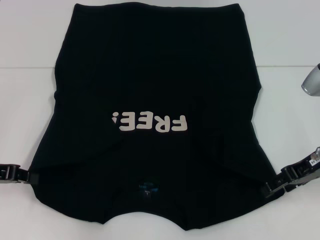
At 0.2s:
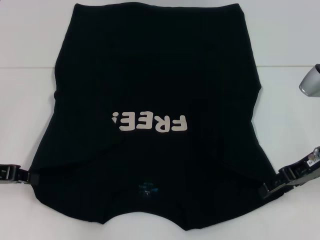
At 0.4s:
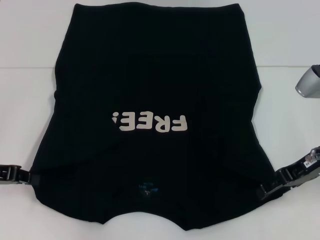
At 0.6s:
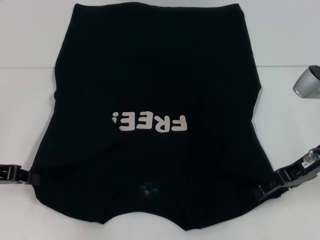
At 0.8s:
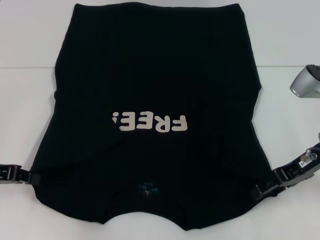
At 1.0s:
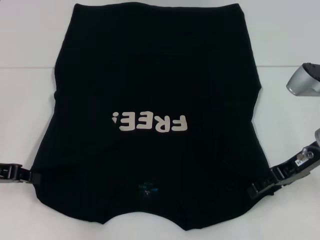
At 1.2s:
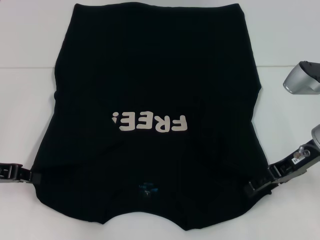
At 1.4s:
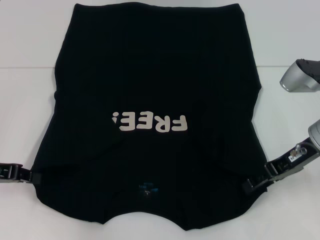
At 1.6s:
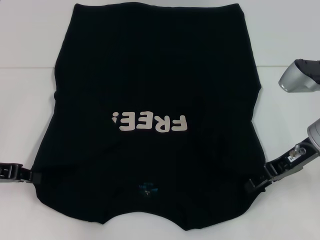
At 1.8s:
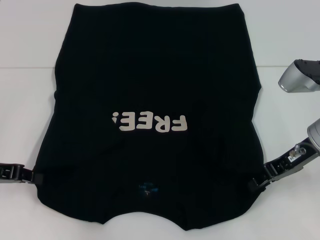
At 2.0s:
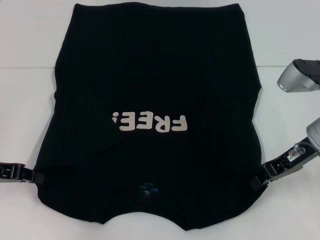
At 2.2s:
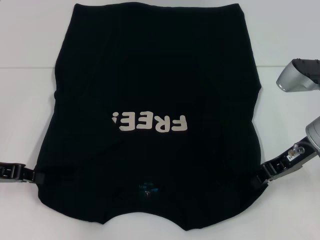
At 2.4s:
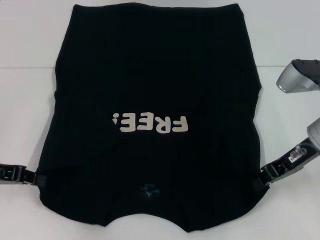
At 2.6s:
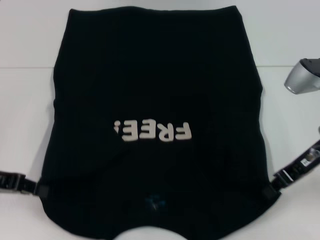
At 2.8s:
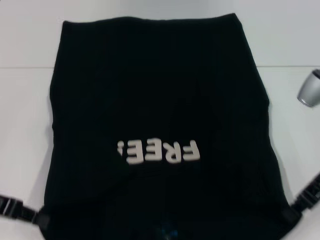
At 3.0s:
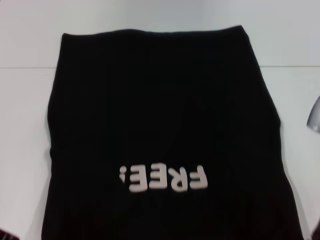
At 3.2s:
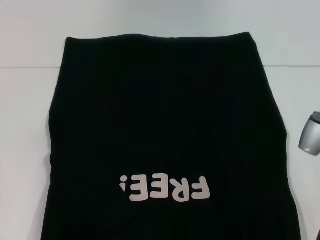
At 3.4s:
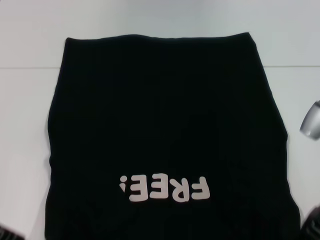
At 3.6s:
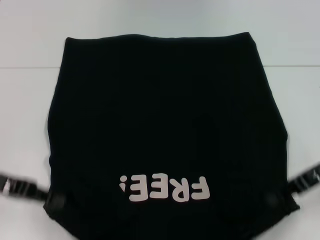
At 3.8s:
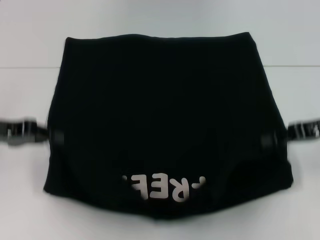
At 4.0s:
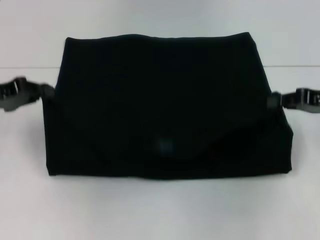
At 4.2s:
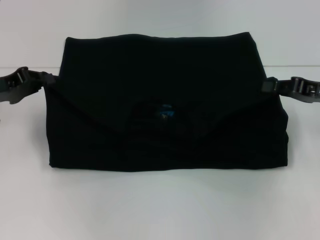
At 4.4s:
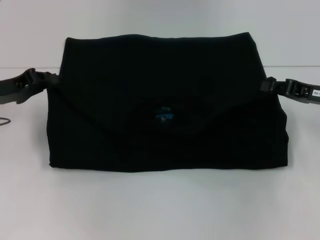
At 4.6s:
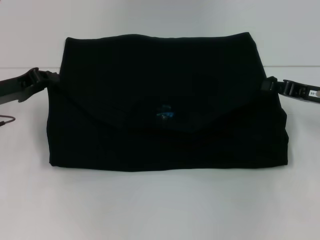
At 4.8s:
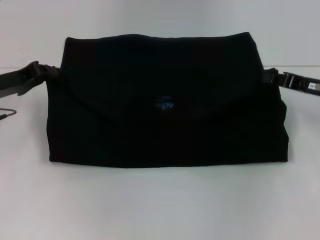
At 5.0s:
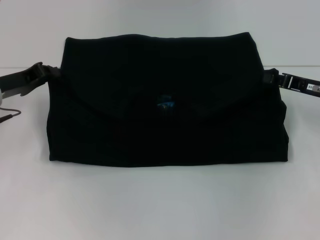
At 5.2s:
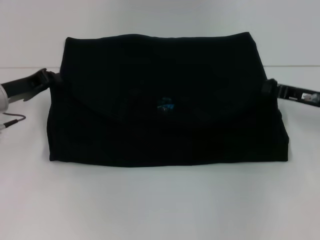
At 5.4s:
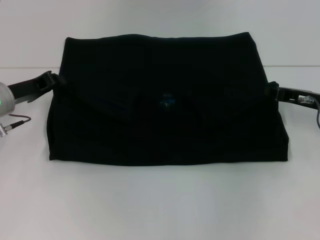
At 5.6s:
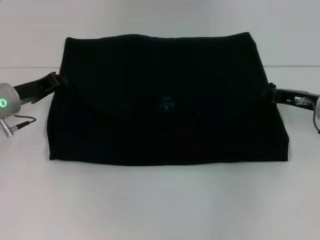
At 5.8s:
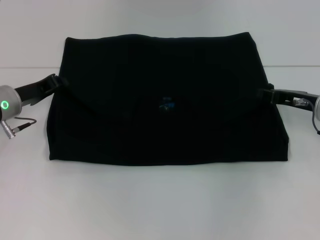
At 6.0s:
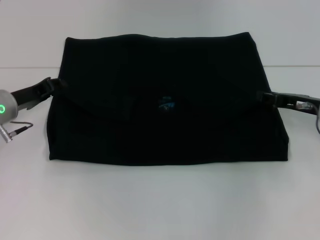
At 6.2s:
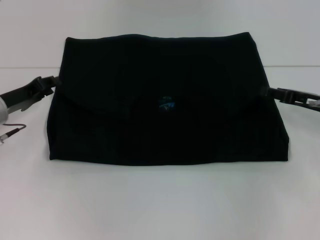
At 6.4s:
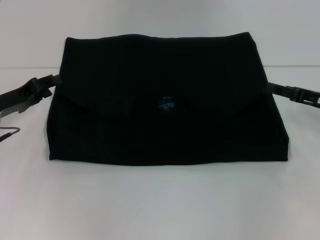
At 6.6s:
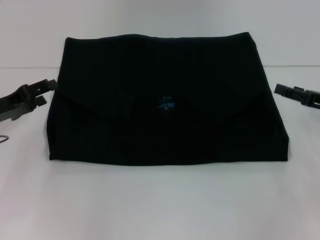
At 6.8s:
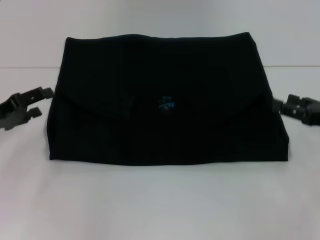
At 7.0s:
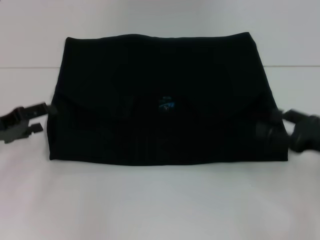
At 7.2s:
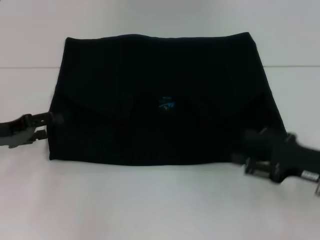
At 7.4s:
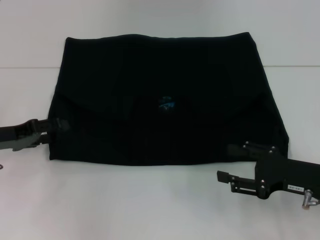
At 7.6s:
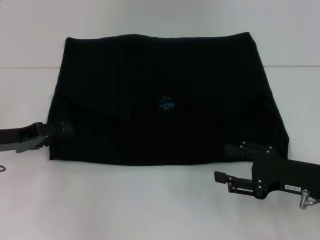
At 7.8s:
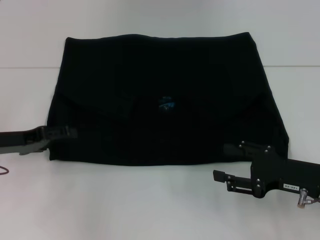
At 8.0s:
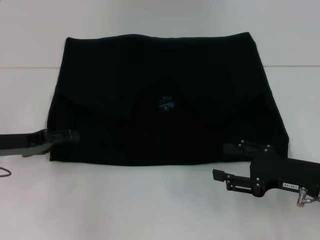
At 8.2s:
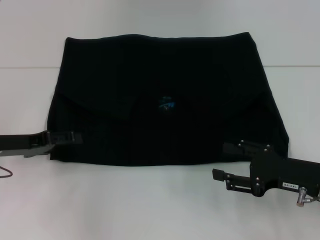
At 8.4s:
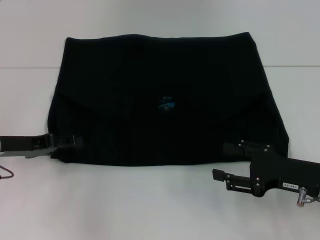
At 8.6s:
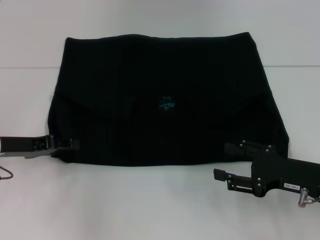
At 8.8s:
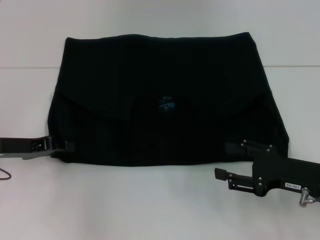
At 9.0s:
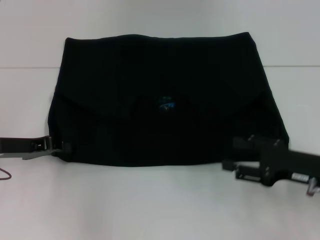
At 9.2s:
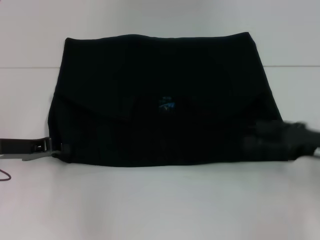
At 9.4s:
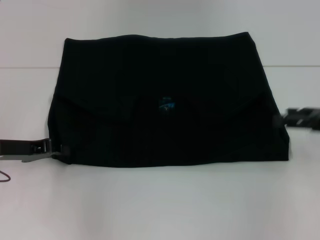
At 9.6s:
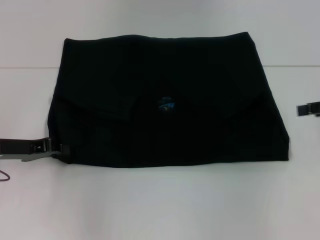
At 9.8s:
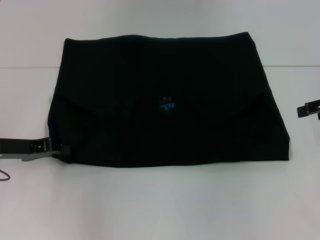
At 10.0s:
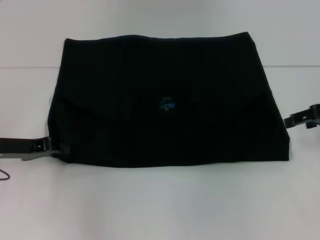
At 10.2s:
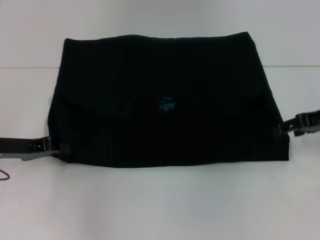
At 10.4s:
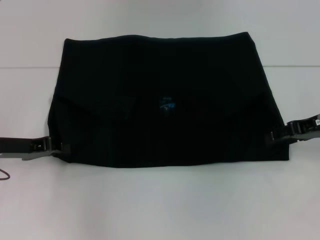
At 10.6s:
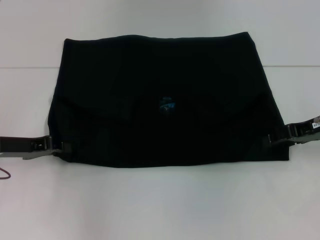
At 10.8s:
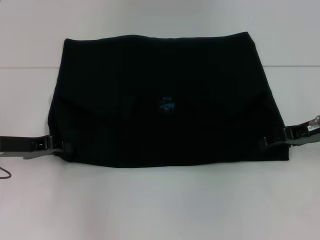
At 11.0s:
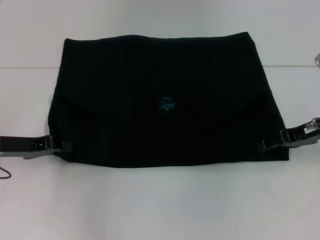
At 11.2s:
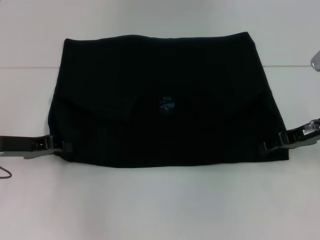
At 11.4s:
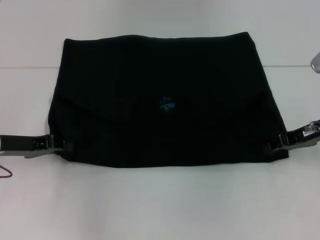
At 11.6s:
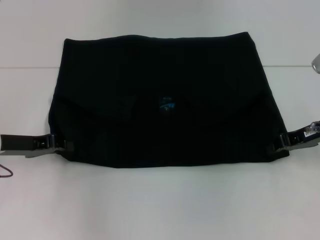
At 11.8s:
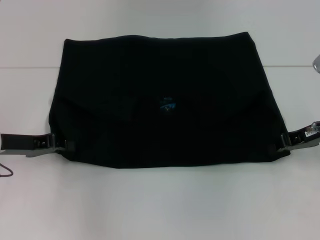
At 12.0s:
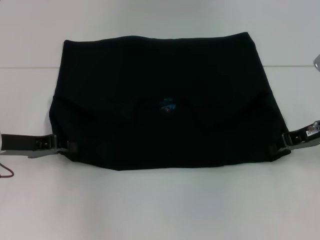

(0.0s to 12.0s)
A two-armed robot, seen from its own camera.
Step, 0.0s - 2.2s: Grab the bottom right corner with your right hand.
Step, 2.4s - 6.0s: Fold the clothes with your left hand.
Step, 2.4s - 6.0s: Fold the clothes with your right hand.
0.0s - 1.6s: The grippers make only small movements.
1.6s - 3.0s: The right gripper ends up about 5 cm from where it was, and closes its fingers.
3.0s - 4.4s: The right gripper changes place by approximately 5 cm; the left gripper shifts about 10 cm forward.
4.4s - 6.0s: The left gripper shifts by about 5 cm.
6.0s - 7.6s: The right gripper is displaced backward by approximately 10 cm, and opens; the left gripper goes approximately 5 cm backward, and opens up.
7.6s - 9.0s: The left gripper closes.
9.0s - 10.4s: The right gripper goes about 15 cm forward and upward.
10.4s - 12.0s: The right gripper closes up.

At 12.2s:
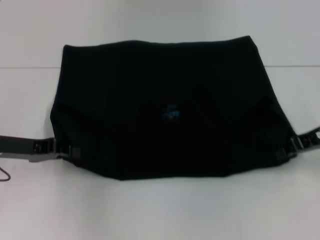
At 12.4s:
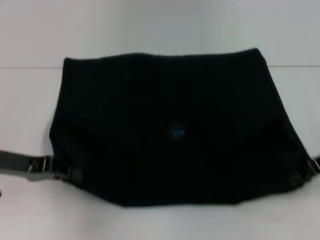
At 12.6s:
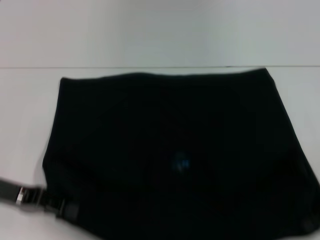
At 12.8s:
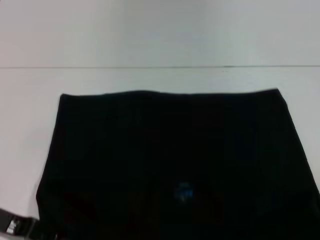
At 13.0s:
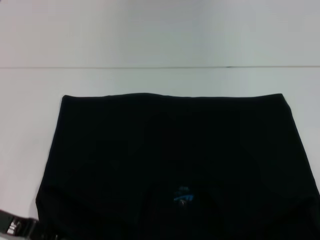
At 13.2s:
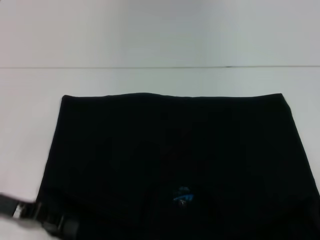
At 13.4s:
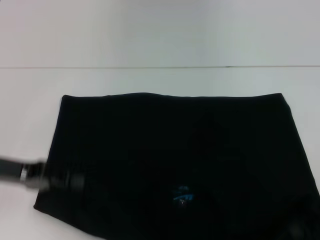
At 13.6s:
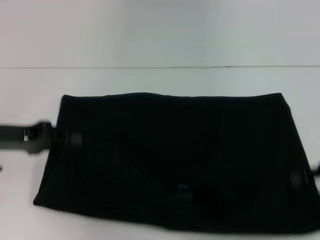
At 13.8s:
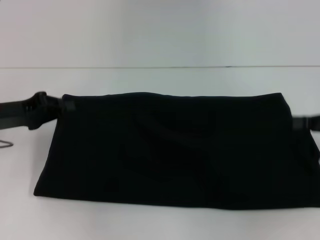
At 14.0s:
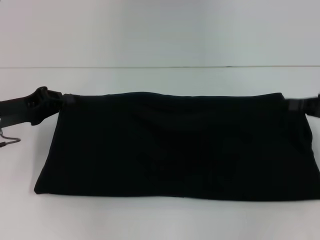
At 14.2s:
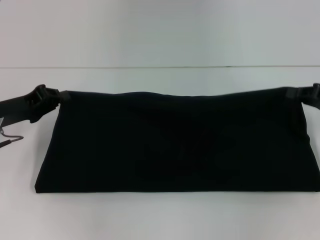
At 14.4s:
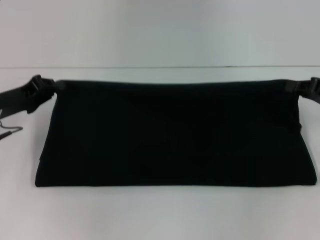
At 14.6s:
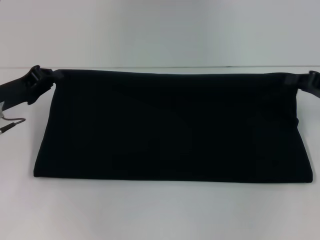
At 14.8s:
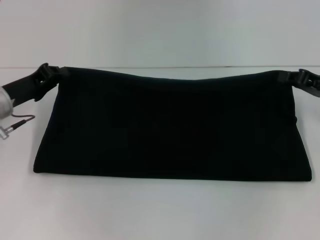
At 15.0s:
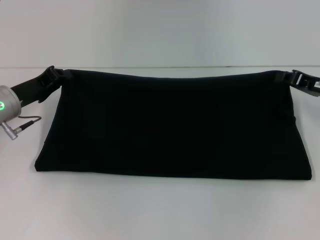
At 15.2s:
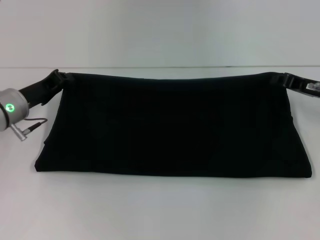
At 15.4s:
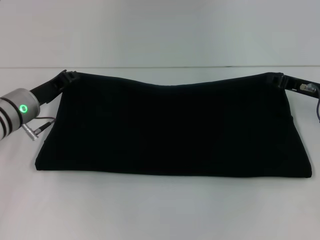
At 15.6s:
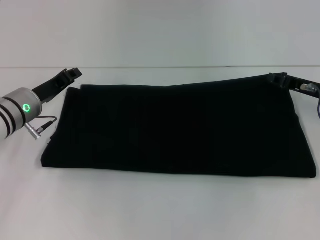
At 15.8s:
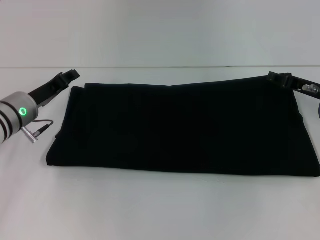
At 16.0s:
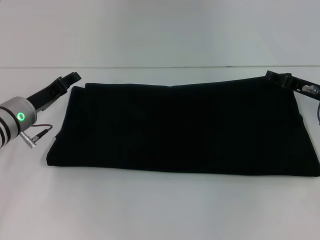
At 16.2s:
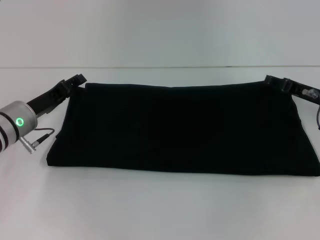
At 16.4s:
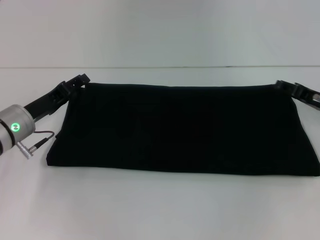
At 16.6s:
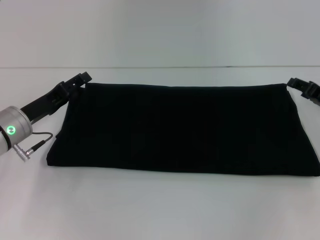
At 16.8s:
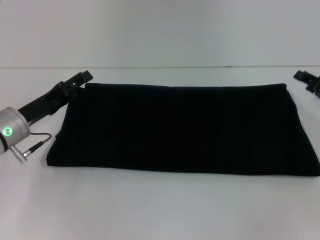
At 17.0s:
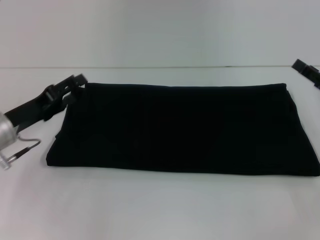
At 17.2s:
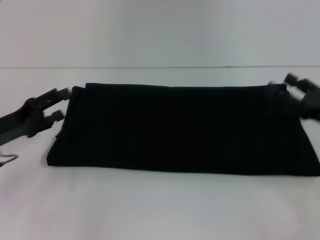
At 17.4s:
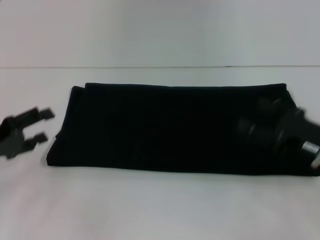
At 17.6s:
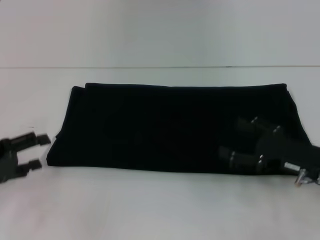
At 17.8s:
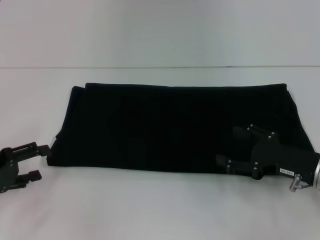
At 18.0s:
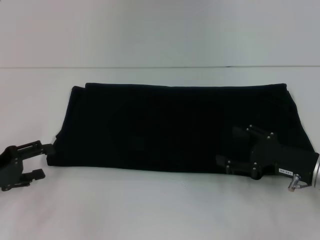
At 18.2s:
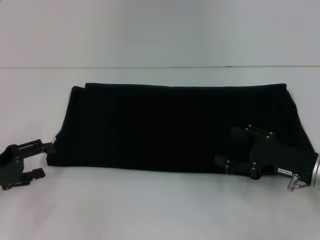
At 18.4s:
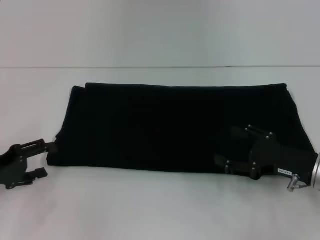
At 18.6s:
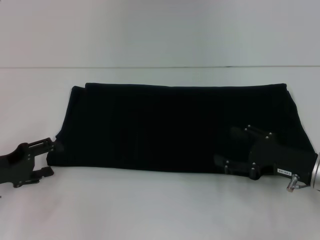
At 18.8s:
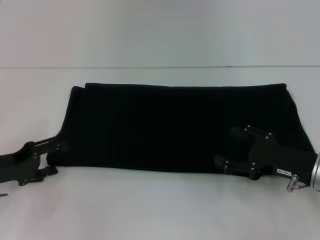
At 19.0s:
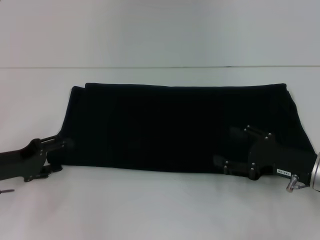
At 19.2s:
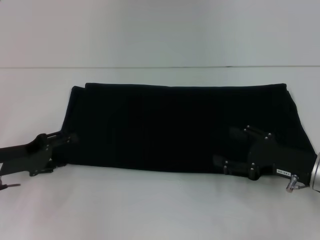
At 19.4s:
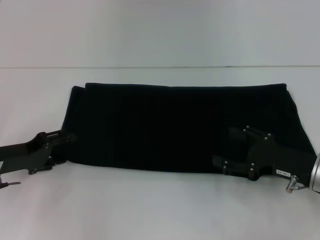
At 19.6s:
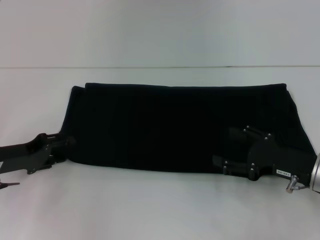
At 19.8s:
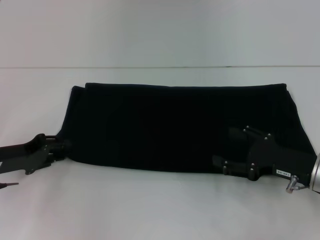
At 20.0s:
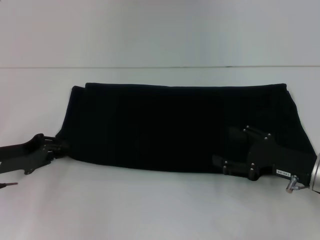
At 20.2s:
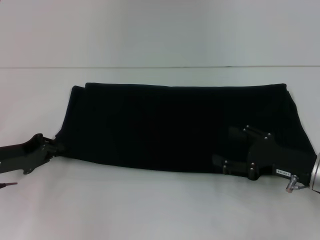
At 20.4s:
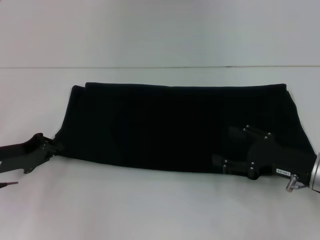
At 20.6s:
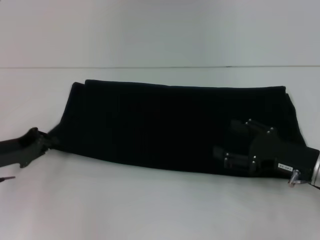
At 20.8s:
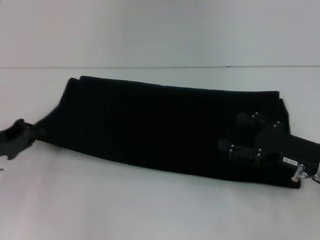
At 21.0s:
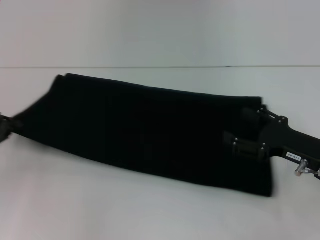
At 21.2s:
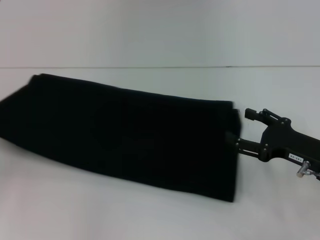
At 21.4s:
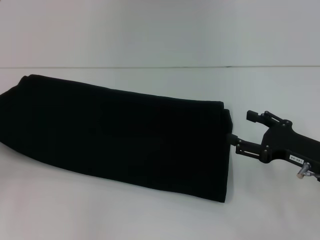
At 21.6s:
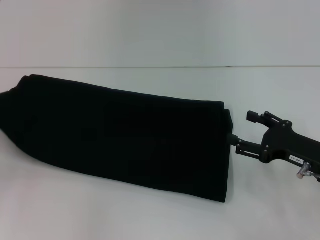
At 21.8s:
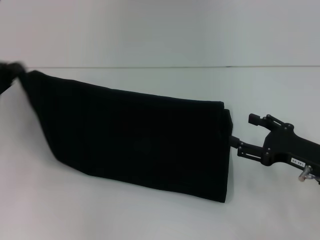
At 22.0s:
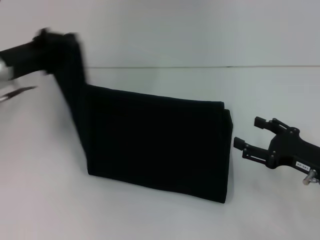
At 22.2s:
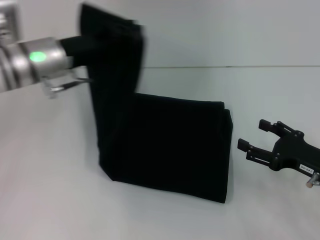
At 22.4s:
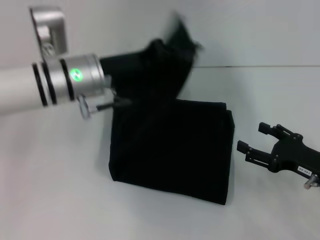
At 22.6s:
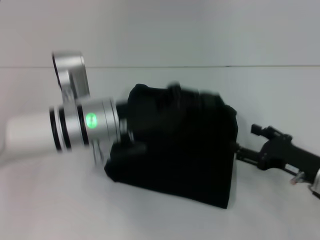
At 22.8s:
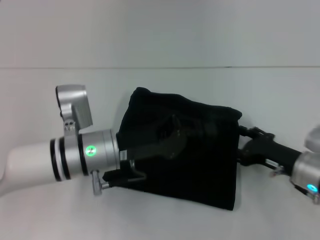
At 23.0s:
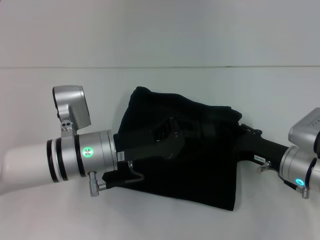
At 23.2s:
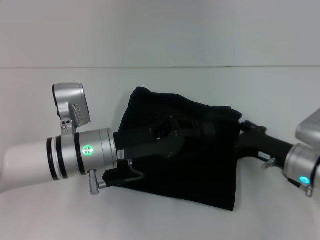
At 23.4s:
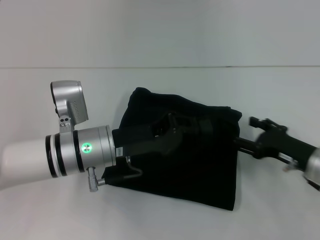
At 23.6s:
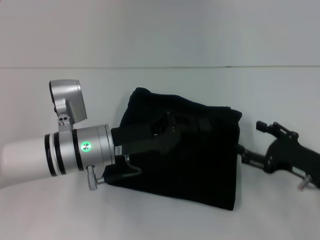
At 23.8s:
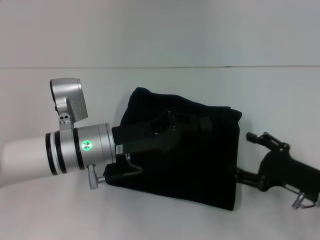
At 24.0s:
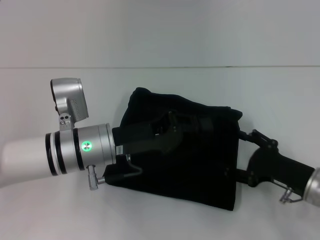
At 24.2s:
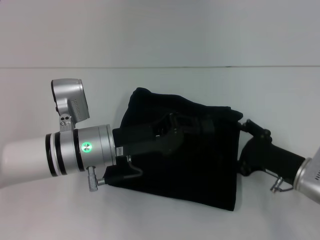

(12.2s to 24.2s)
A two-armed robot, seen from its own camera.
Step, 13.0s - 16.4s: Fold the clothes with your right hand.
12.2s - 13.8s: The right gripper is displaced to the right by approximately 5 cm. The left gripper moves approximately 5 cm backward and comes back.
13.8s - 15.2s: The left gripper moves some 10 cm. Meanwhile the right gripper goes roughly 10 cm forward and to the left.
15.2s - 16.6s: The left gripper opens its fingers. Meanwhile the right gripper opens its fingers.
16.6s - 18.2s: The left gripper goes approximately 10 cm to the left and backward. The right gripper heads backward and to the left, covering some 10 cm.
18.2s - 19.8s: The left gripper moves approximately 5 cm.
19.8s - 21.2s: The left gripper moves to the left, roughly 10 cm, and closes its fingers.
21.2s - 22.6s: The left gripper heads to the right, covering roughly 30 cm.
